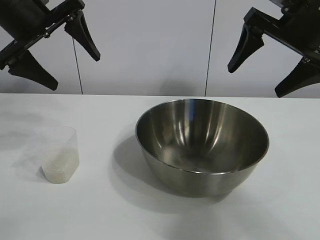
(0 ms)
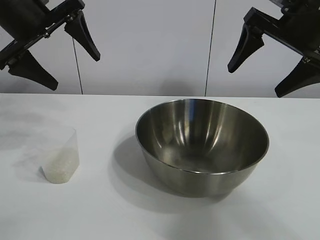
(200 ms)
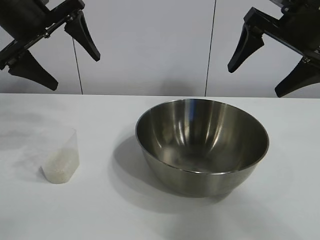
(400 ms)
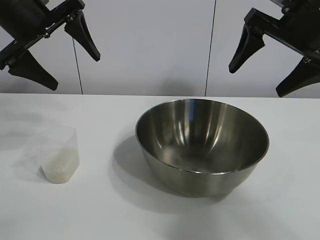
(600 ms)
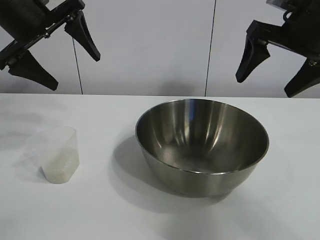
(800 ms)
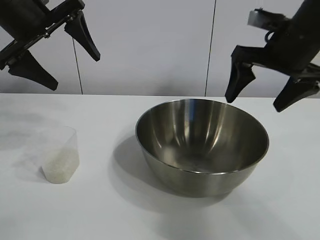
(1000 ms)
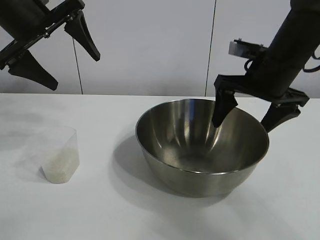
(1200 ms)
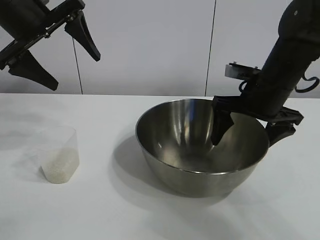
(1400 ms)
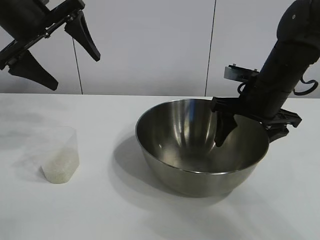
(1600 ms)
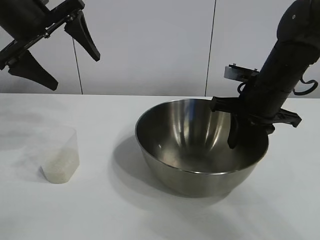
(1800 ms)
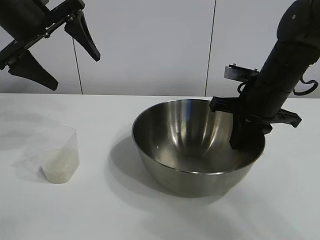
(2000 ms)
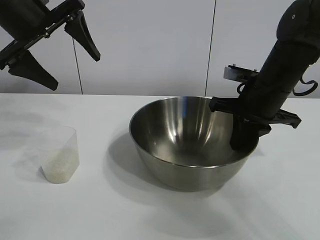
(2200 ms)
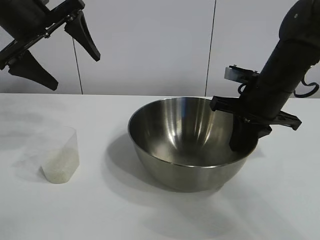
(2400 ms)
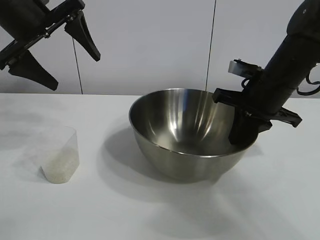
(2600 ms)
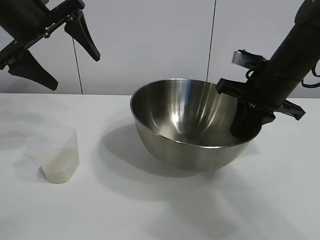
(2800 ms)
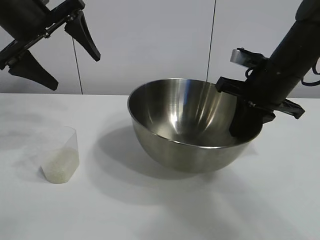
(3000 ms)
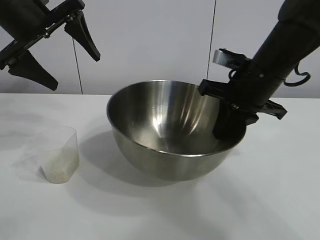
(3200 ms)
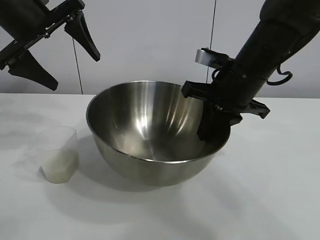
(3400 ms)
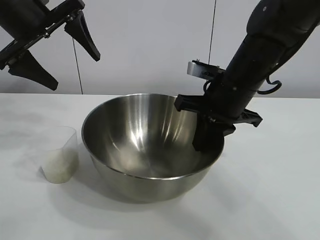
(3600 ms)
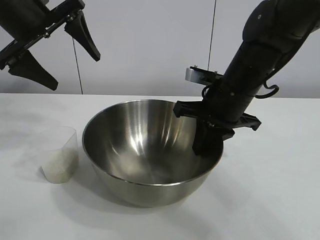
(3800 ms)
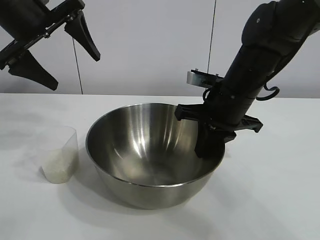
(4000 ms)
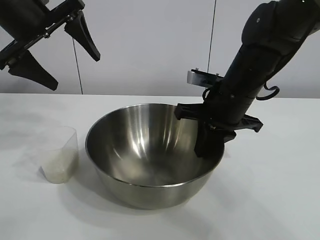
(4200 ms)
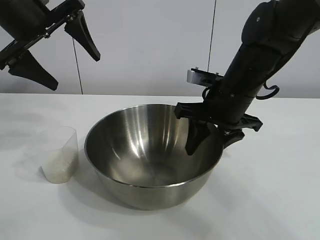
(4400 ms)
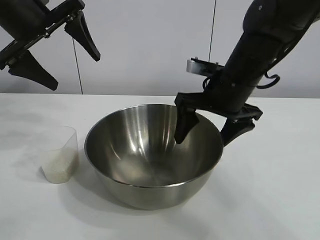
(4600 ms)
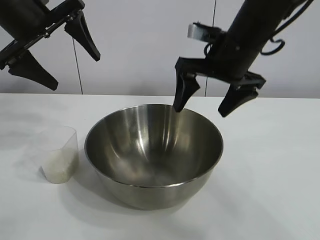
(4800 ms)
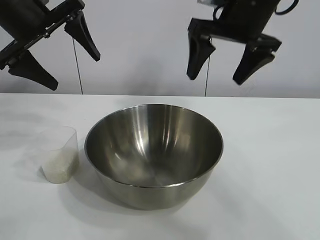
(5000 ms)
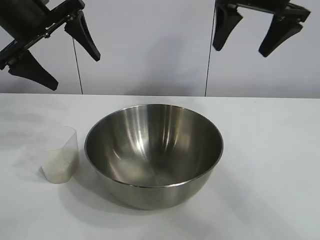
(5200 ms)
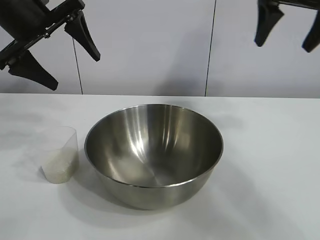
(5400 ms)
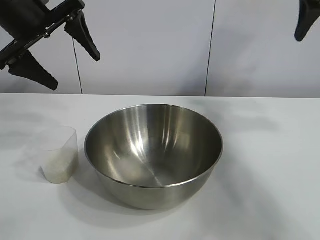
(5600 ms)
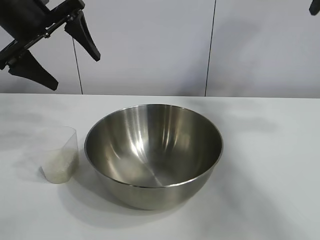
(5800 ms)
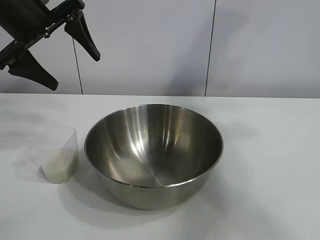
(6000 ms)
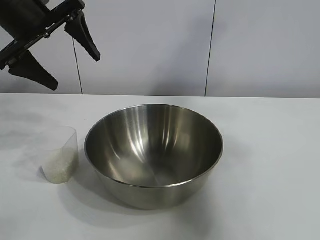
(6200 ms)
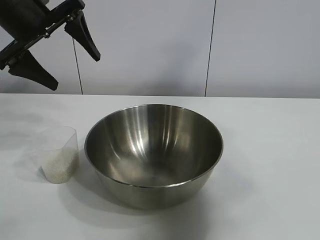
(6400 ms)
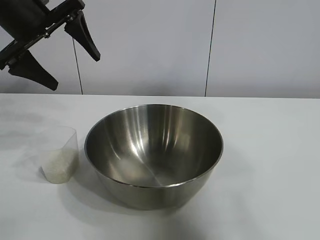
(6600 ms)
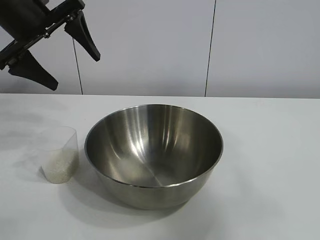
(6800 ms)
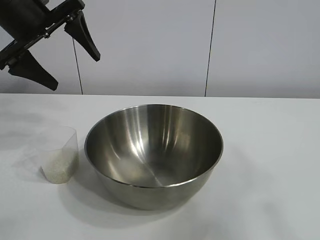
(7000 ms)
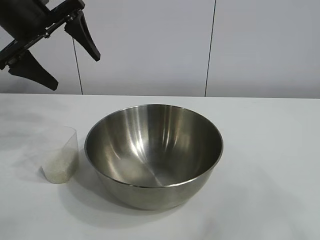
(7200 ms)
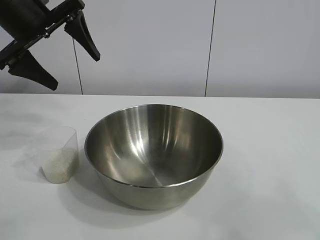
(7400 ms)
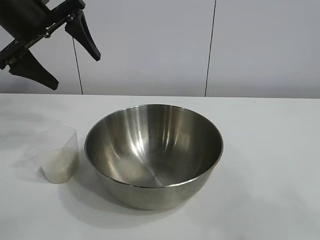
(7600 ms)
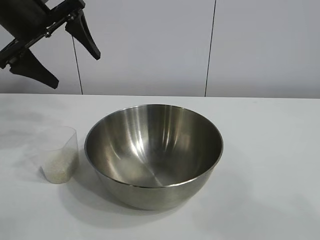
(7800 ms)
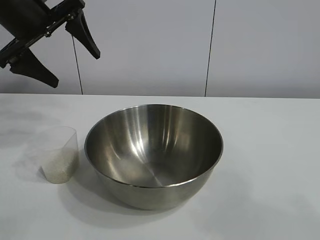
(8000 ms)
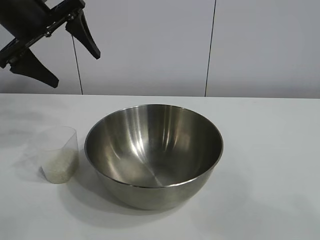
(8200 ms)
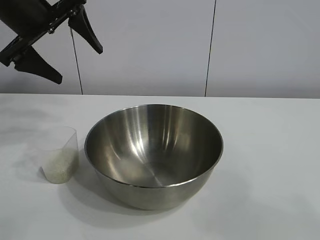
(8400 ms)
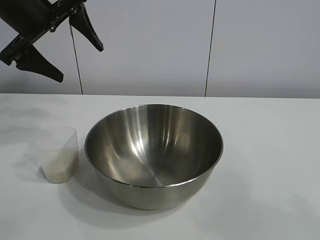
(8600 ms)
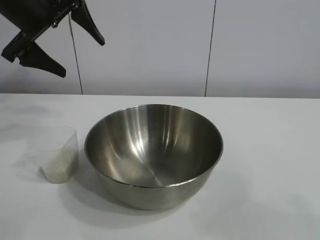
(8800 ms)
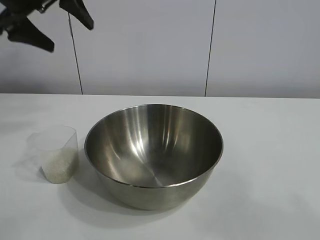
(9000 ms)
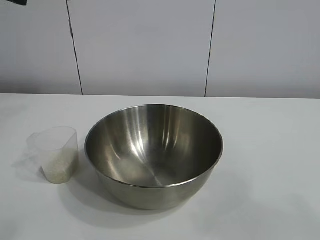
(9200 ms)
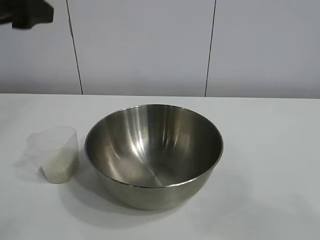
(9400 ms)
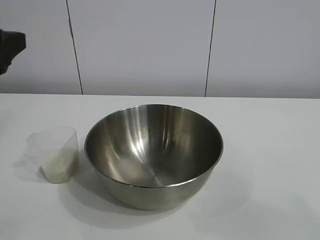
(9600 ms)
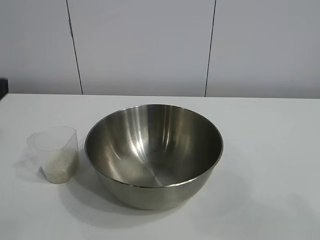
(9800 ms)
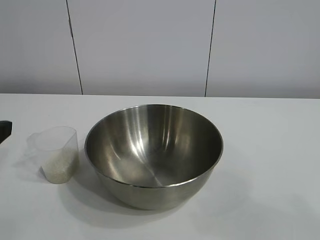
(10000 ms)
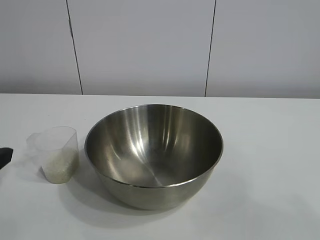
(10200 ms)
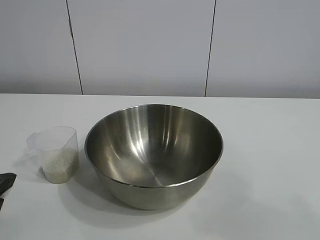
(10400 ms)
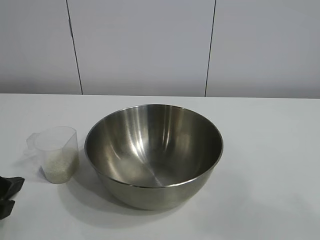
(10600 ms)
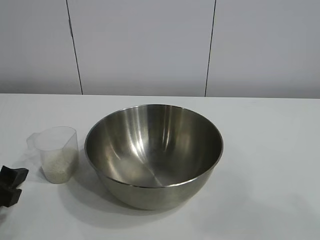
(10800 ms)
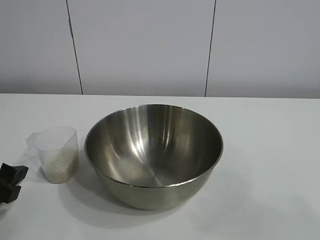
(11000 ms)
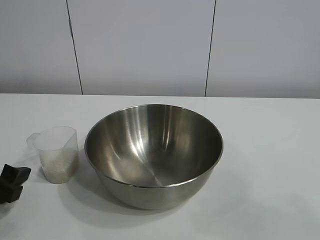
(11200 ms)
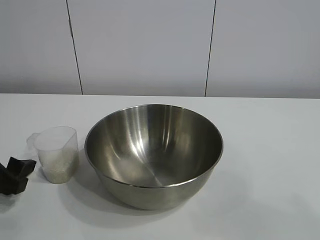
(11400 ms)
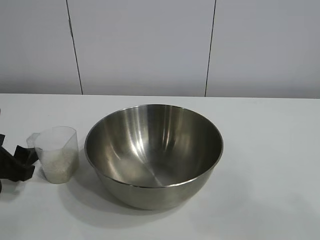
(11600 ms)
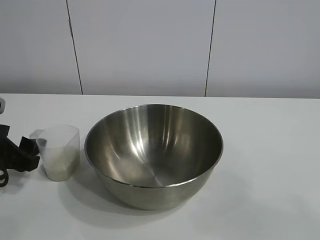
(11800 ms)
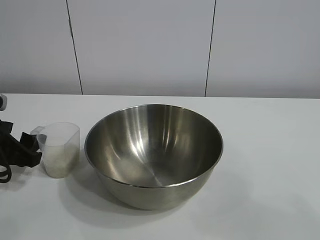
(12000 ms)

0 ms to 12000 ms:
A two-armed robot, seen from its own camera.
Task of the whole recording: the right gripper grasp the rice container and place it in the center of the table, the left gripper grasp the rice scoop and pour the rice into the rice container.
Step, 800 ms to 4400 ms: Move the bowl in the center of view with right gripper.

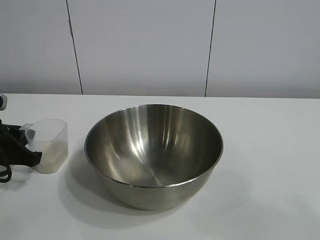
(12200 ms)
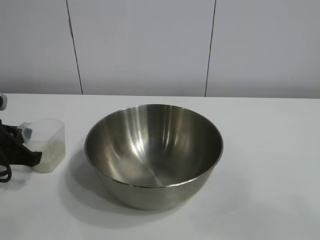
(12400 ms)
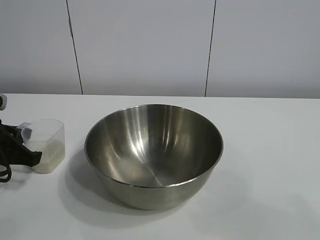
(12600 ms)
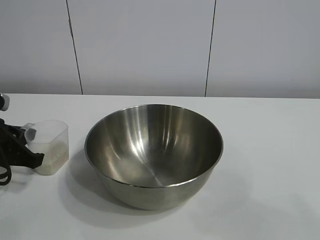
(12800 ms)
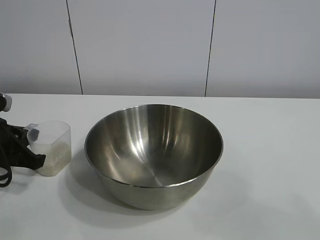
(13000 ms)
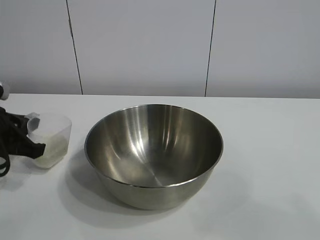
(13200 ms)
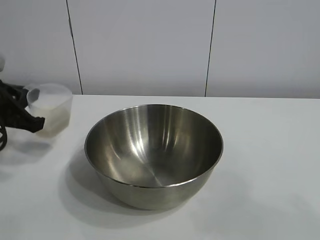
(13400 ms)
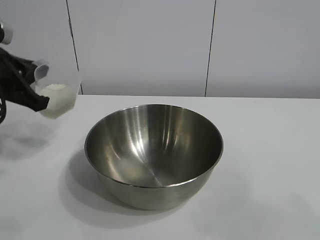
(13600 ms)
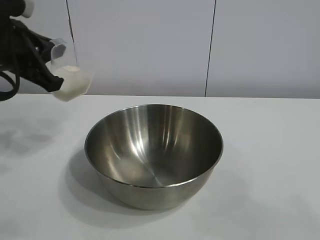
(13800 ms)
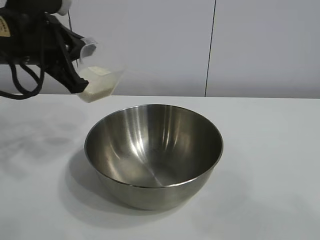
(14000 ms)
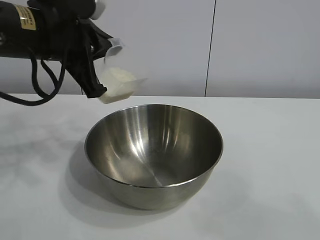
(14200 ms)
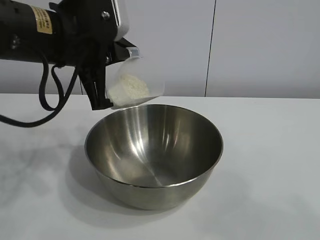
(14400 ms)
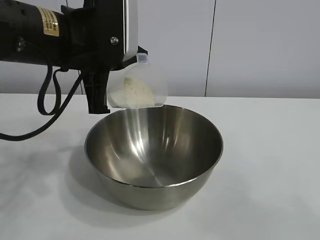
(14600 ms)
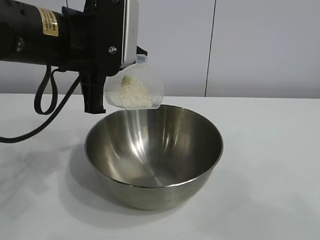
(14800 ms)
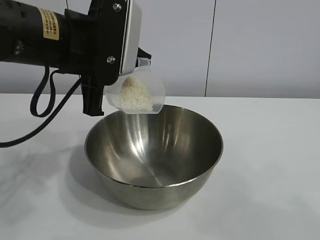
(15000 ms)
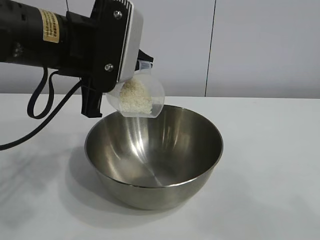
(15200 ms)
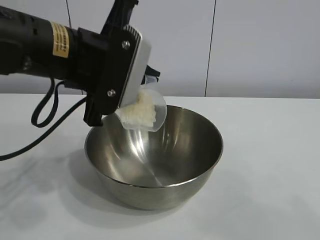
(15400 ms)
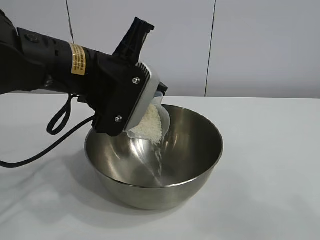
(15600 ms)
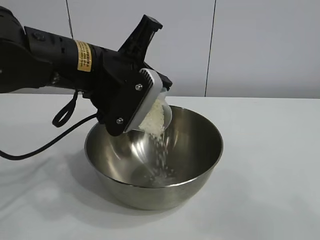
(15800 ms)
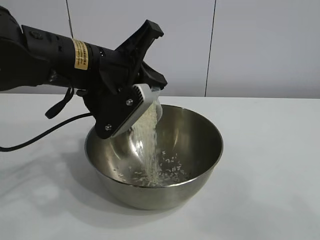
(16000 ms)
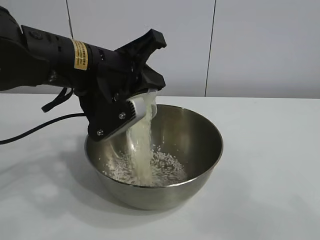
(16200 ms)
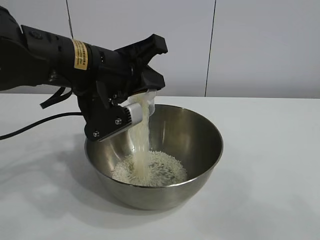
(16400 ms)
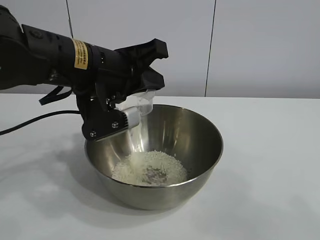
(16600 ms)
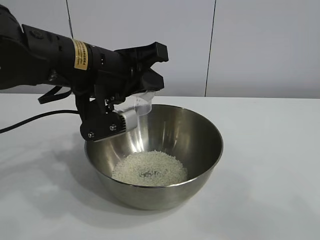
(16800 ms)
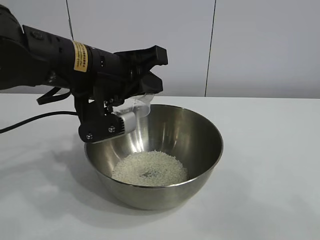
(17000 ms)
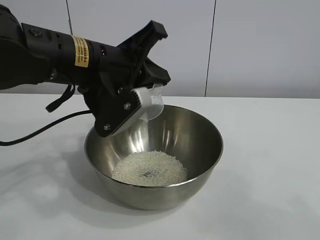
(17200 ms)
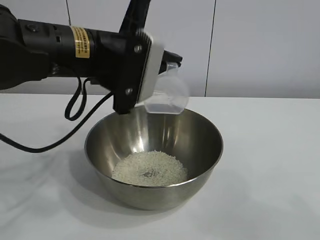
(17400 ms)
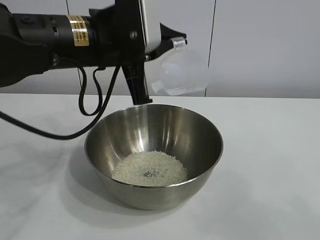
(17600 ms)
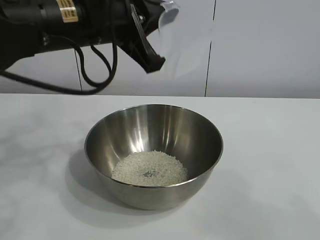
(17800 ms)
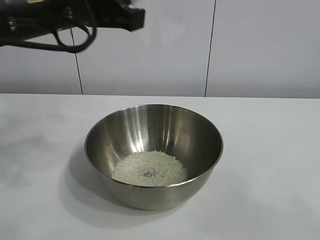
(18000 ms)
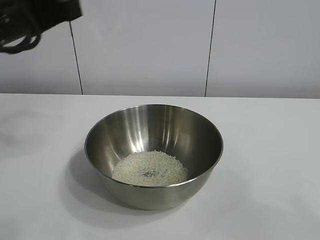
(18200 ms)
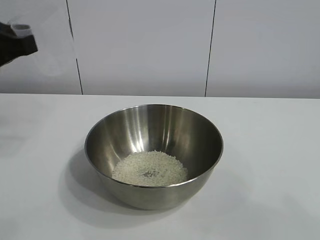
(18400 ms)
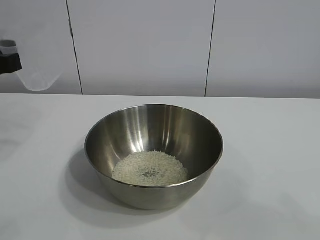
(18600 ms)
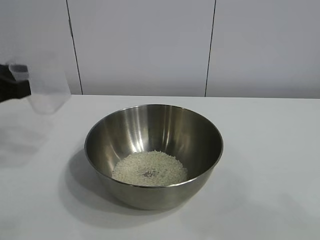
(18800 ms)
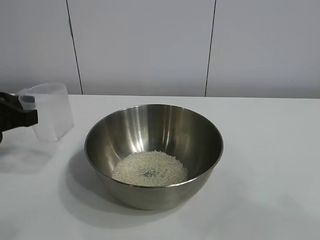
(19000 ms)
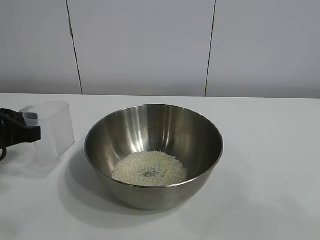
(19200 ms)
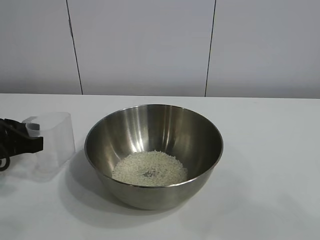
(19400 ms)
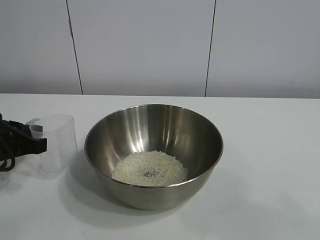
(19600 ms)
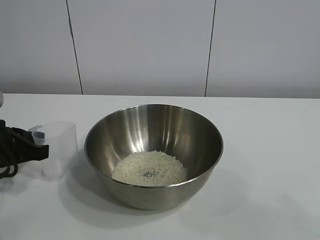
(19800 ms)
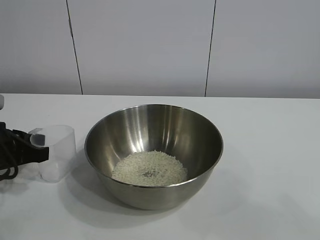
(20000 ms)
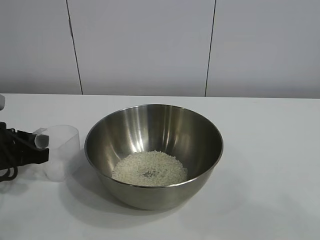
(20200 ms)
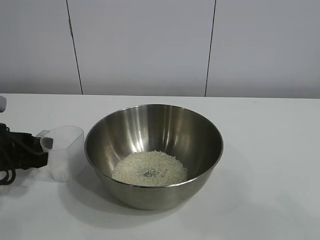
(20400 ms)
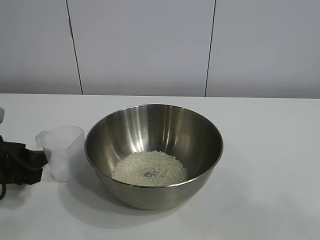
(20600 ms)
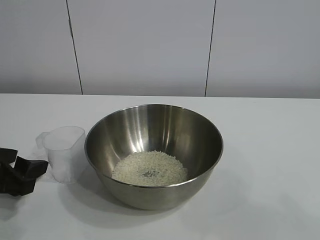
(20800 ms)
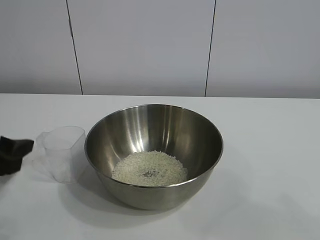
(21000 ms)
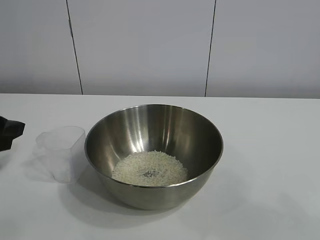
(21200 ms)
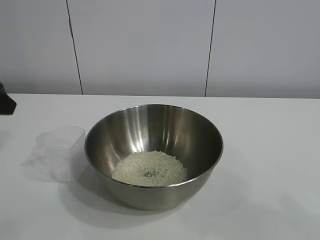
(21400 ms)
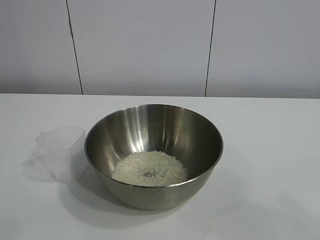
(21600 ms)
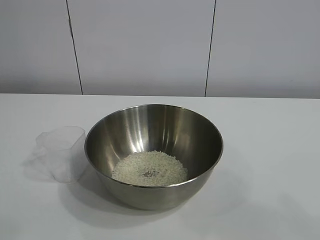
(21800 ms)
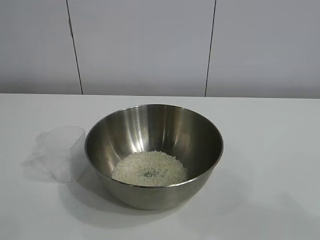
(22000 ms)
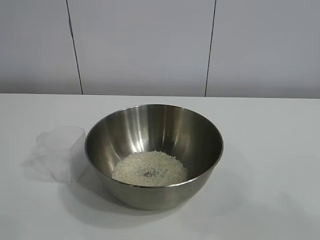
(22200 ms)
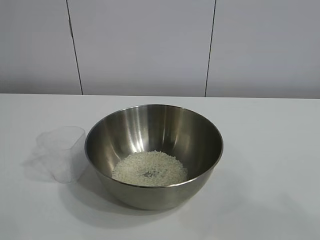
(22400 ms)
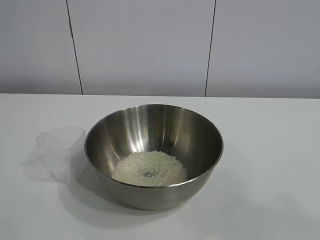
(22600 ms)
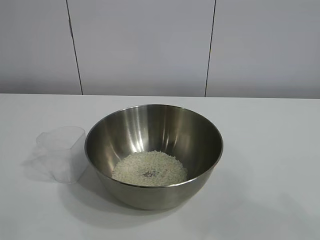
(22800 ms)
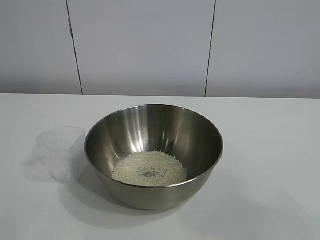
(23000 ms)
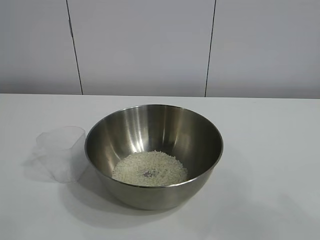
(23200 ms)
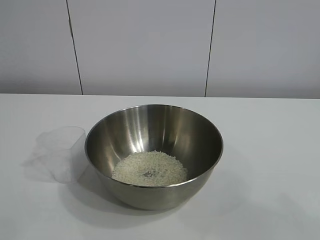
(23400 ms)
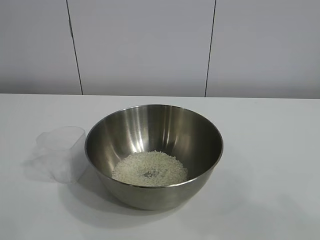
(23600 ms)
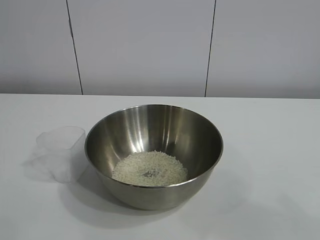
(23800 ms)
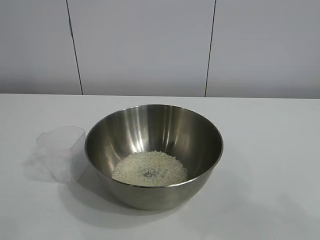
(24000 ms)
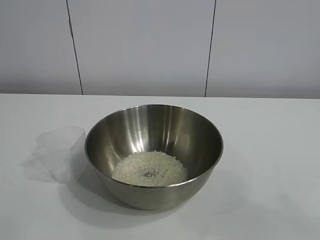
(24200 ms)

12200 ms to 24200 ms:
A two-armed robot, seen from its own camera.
Task of the whole recording: the right gripper grasp the rice container and place it in the center of the table, the left gripper grasp the rice scoop and pour the rice into the rice container.
Step, 12800 ms to 17000 ms: Pour the rice from the cup into the bowl with the left gripper.
Step, 17200 ms to 20400 ms: Place the cup on the table with the left gripper.
